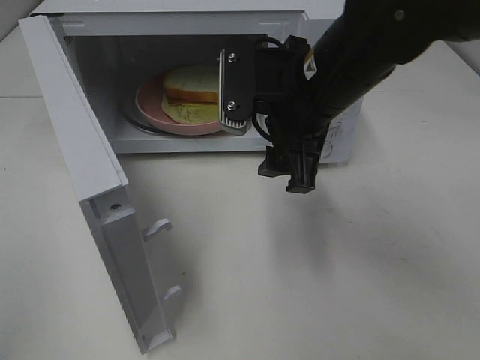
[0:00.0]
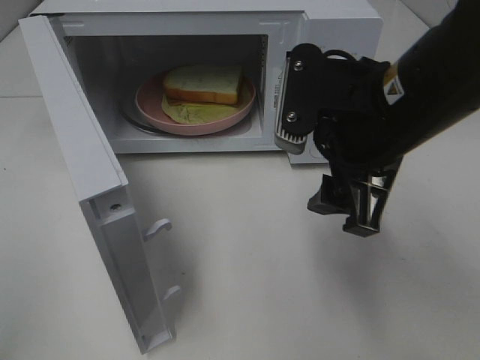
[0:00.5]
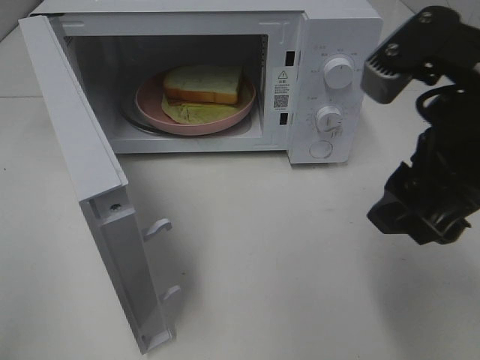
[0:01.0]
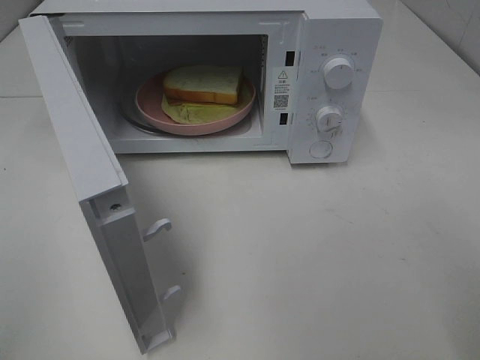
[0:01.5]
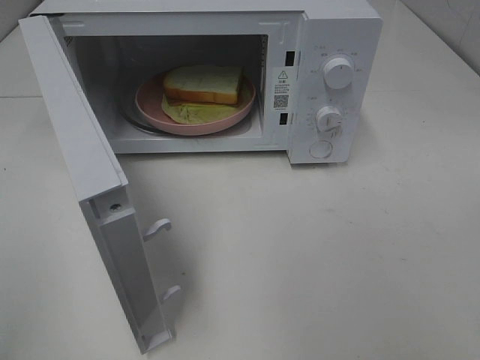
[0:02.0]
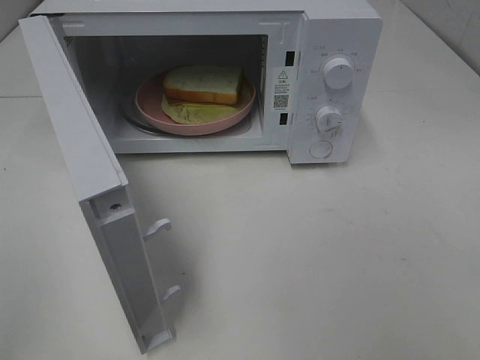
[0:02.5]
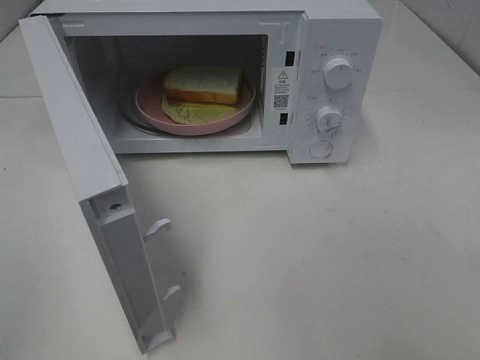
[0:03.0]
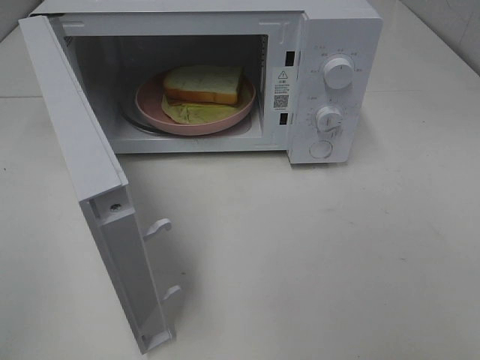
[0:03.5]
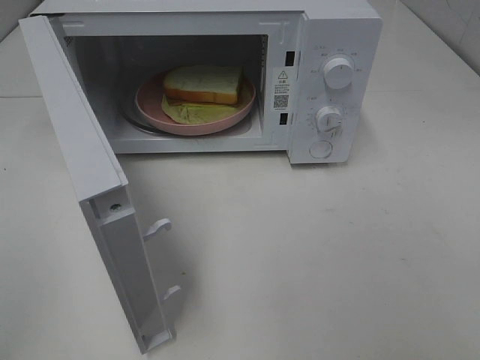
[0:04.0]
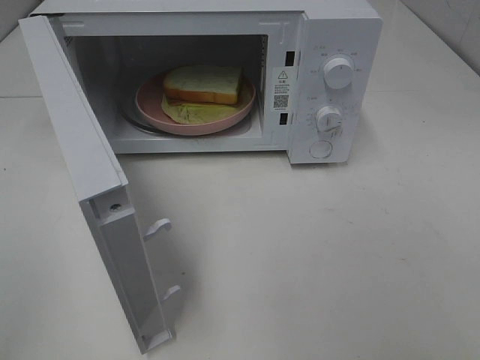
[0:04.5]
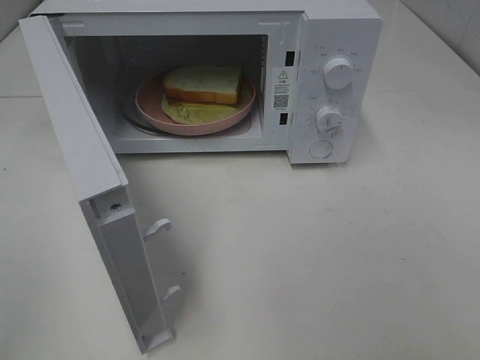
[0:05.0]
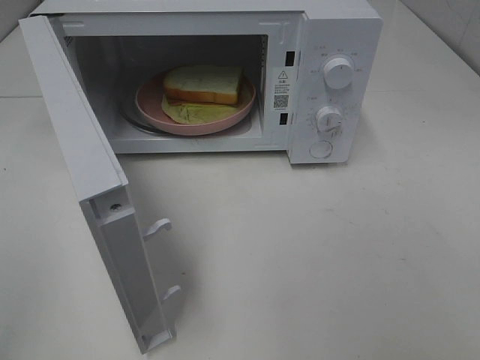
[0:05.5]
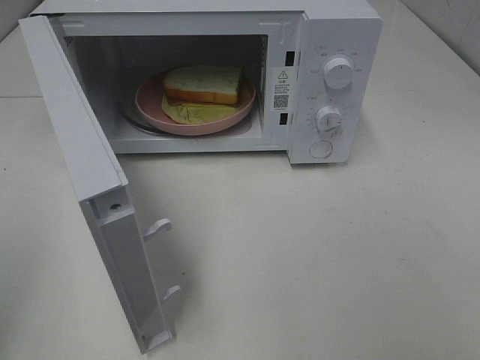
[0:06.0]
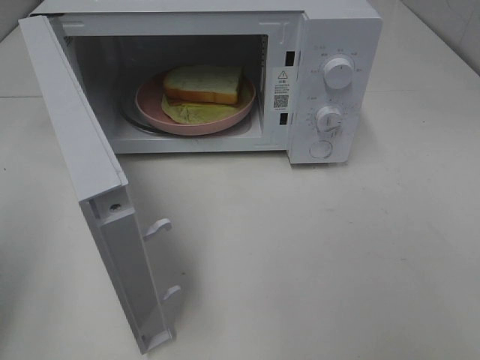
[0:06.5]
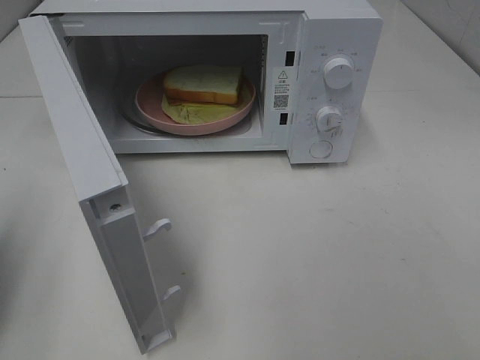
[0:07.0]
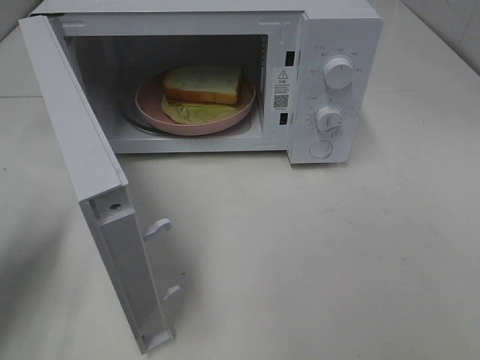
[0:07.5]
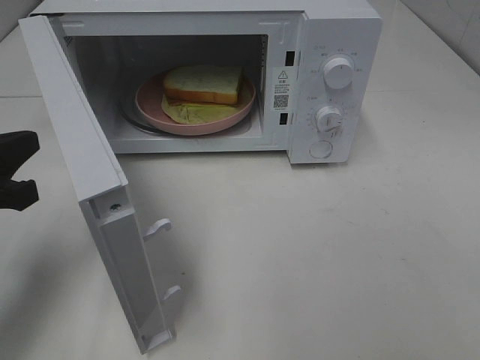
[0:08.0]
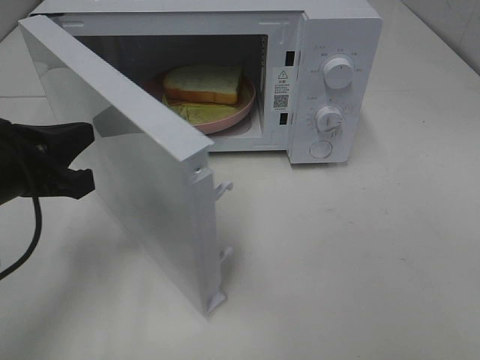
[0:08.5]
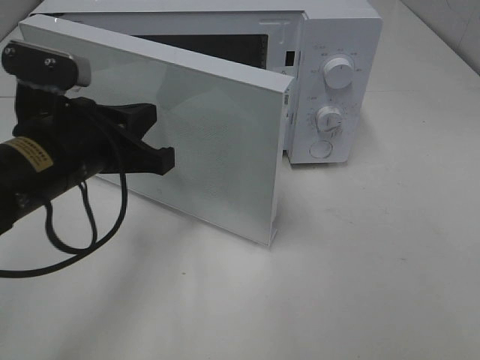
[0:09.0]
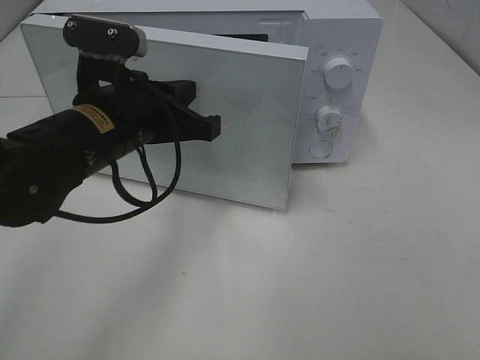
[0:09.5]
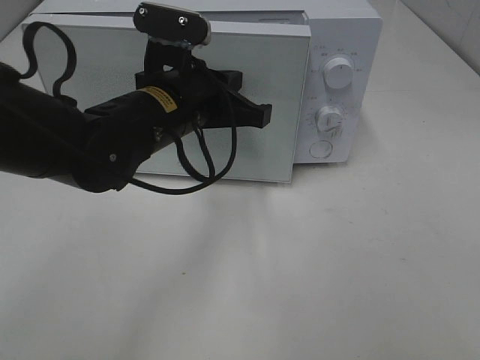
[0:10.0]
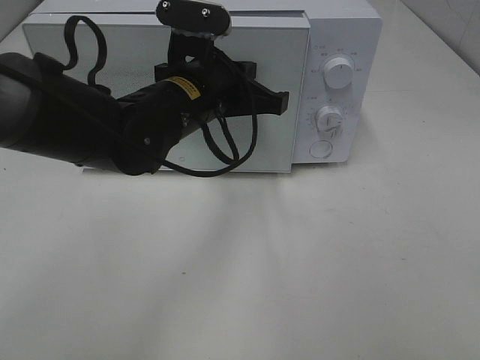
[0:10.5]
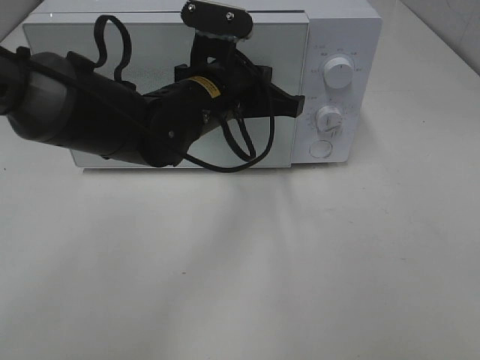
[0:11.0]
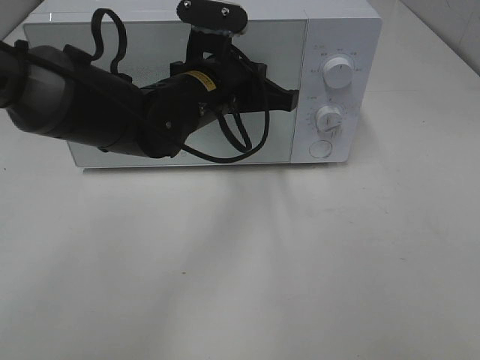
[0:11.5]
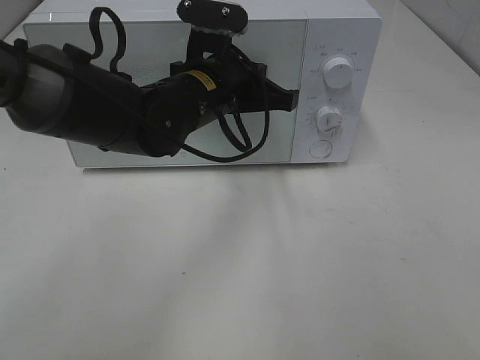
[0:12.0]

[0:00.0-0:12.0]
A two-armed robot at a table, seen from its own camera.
Task of the whole recording: Heat Sandwich.
0:00.0 to 0:02.0: The right gripper shifts about 30 cm backward, to the right and upward.
0:06.0 to 0:08.0: The left gripper shifts some 20 cm forward, downward and to the right.
0:08.0 to 0:10.0: The left gripper is displaced to the right and forward by approximately 25 cm.
0:10.0 to 0:12.0: The left gripper ends up roughly 5 cm from where it was.

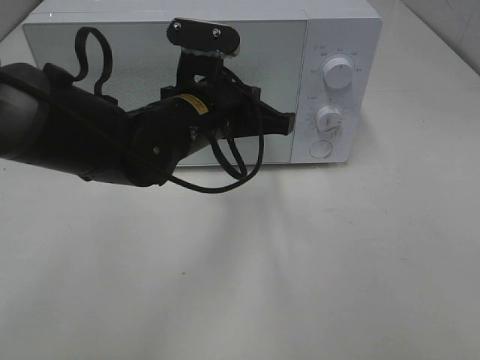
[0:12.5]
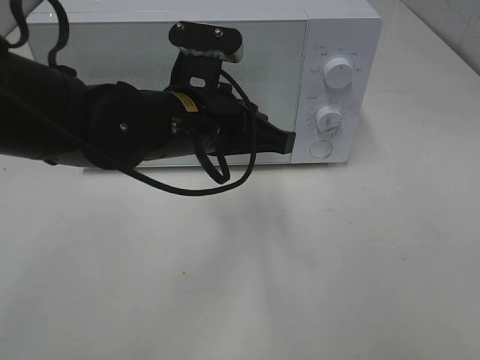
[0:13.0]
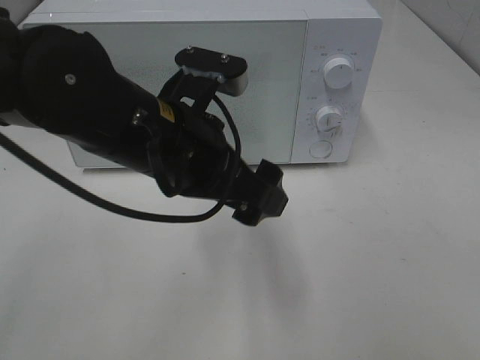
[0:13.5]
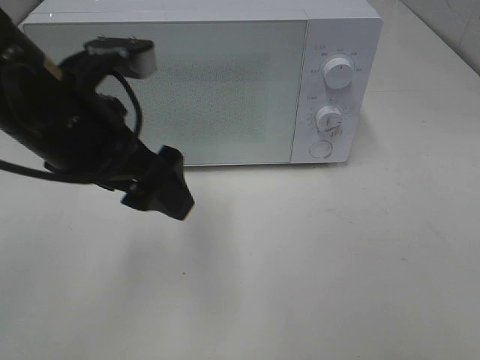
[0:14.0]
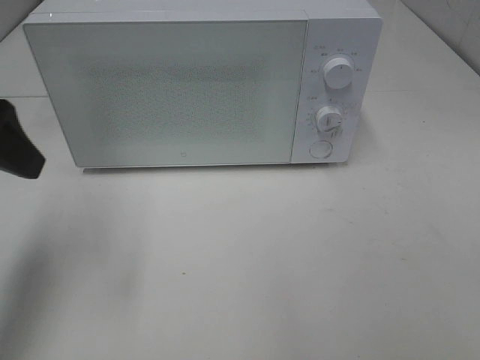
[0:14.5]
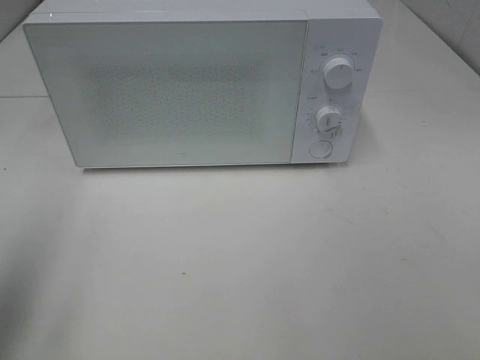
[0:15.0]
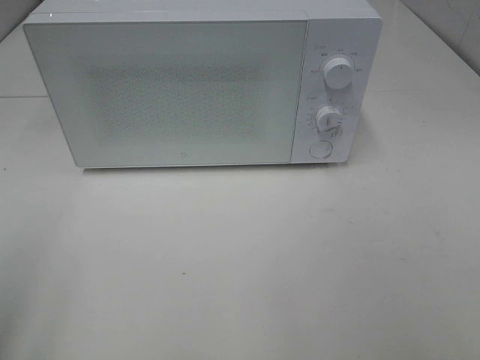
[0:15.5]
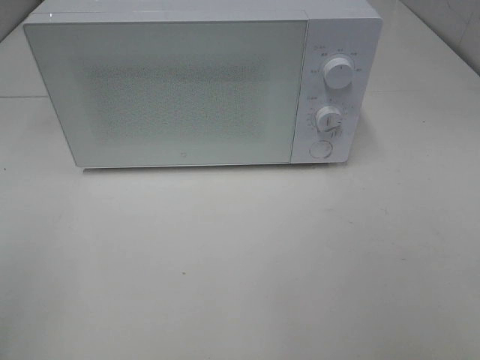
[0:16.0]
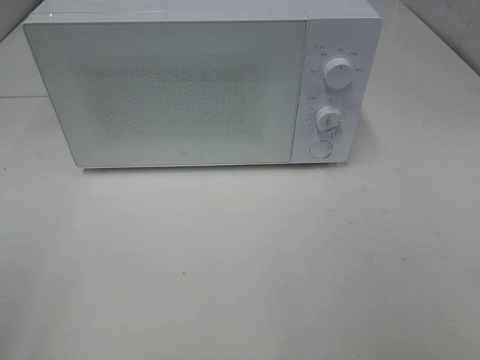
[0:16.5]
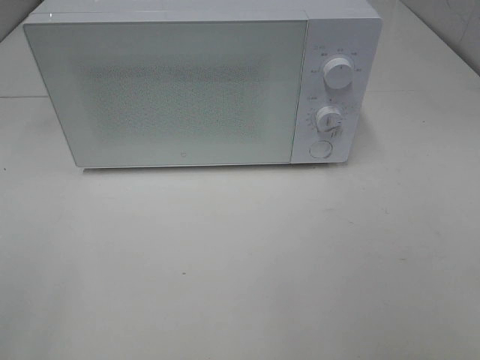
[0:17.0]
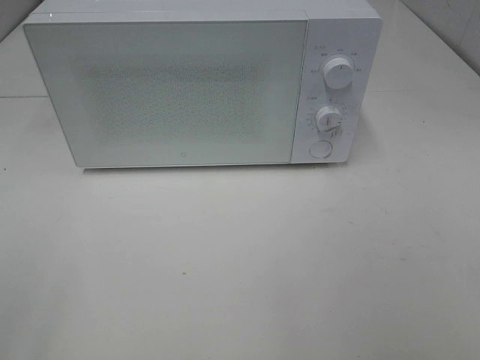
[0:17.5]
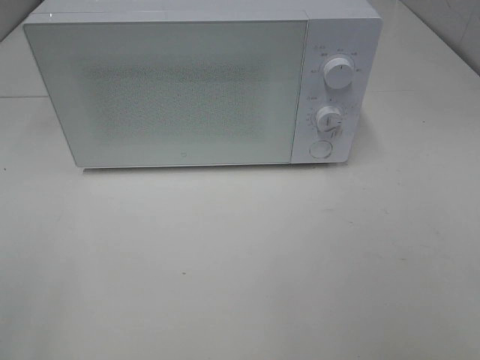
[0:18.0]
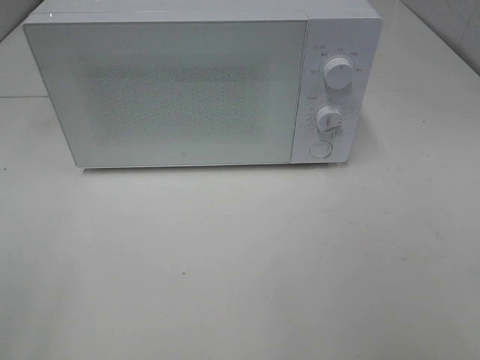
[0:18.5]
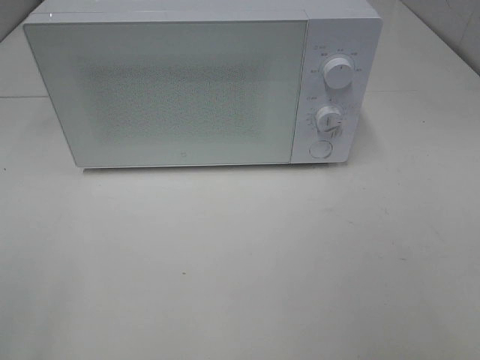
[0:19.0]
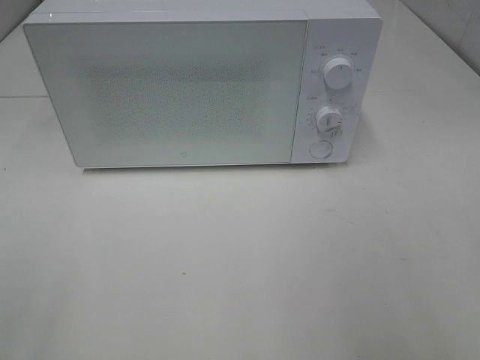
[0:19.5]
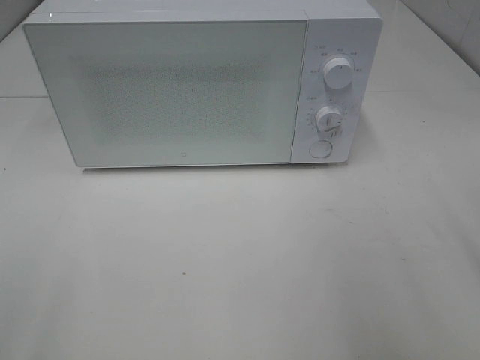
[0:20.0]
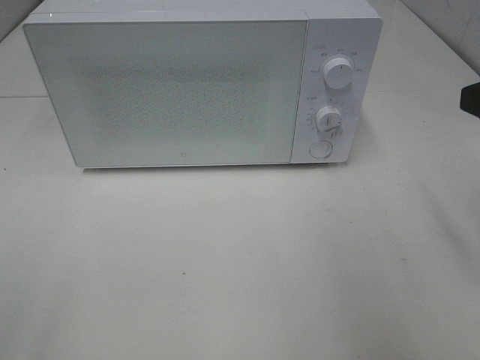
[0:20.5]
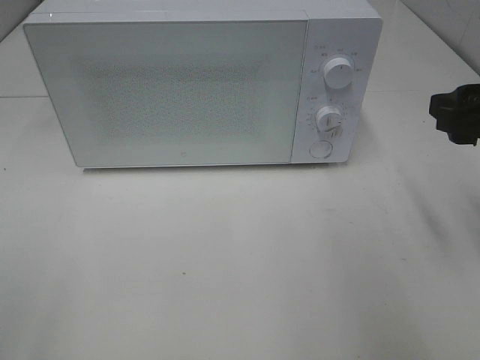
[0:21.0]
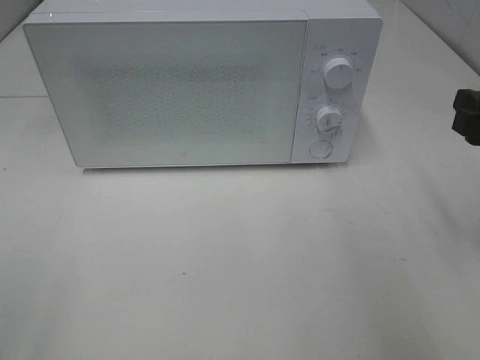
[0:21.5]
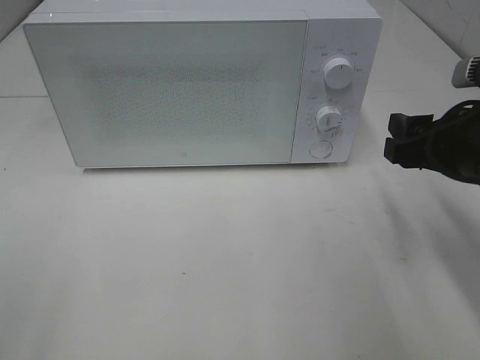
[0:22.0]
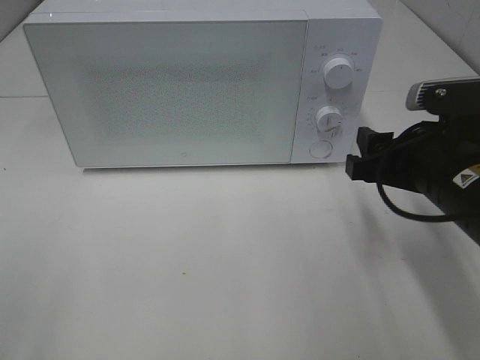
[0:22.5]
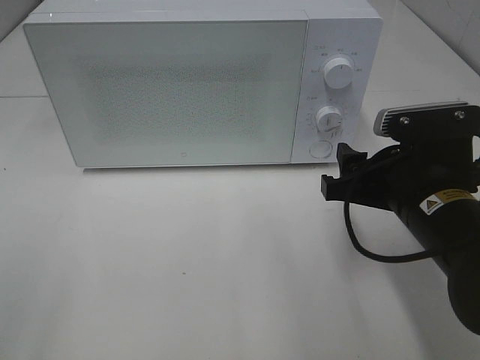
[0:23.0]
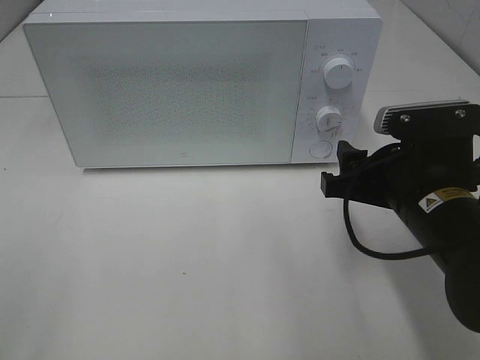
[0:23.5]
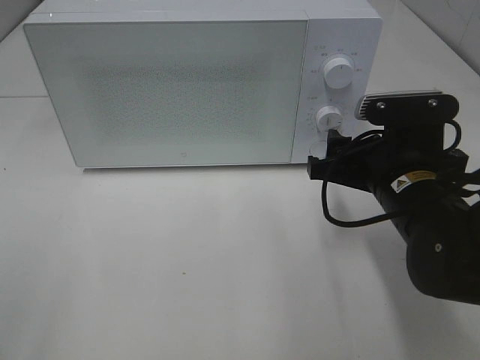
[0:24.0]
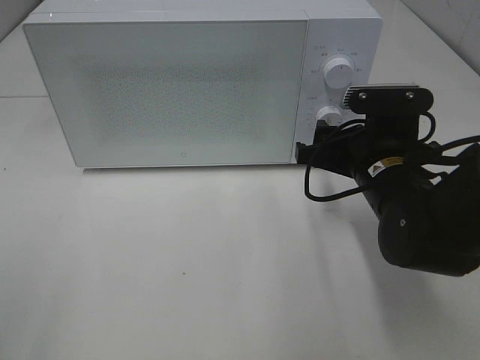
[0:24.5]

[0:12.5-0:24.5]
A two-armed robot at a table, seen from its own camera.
Task of the whole recording: Heat Sandwich.
0:12.5 to 0:14.5: The left gripper goes approximately 25 cm to the left and upward, and opens.
0:14.5 to 0:16.5: The left gripper travels backward by approximately 20 cm.
0:20.5 to 0:22.5: The right gripper shifts some 15 cm downward and to the left.
0:22.5 to 0:24.5: The right gripper shifts some 5 cm forward.

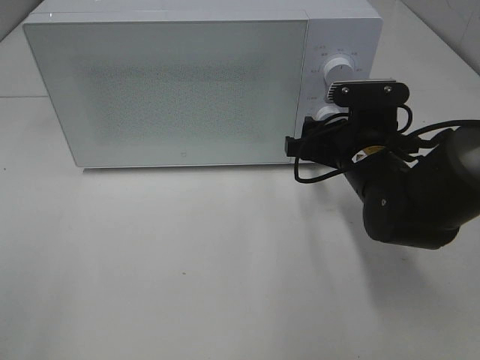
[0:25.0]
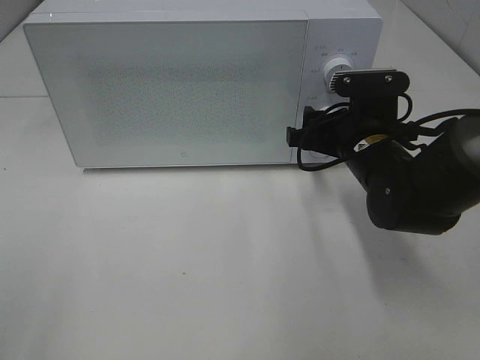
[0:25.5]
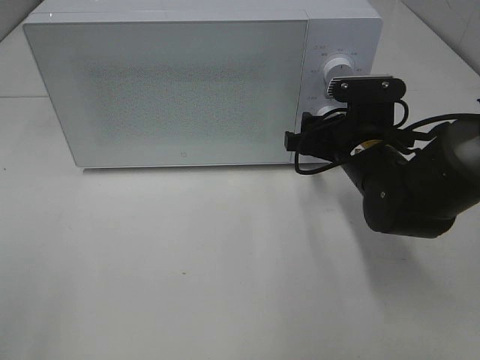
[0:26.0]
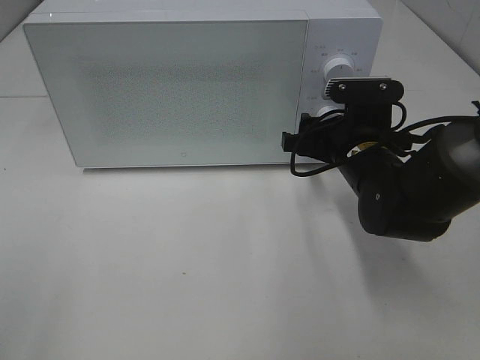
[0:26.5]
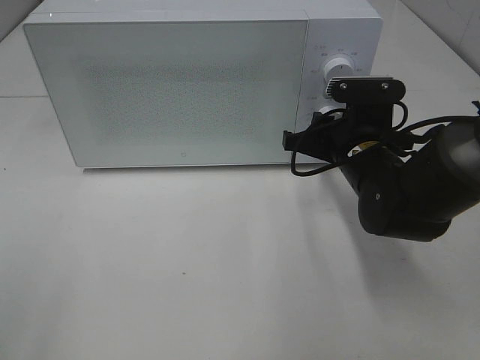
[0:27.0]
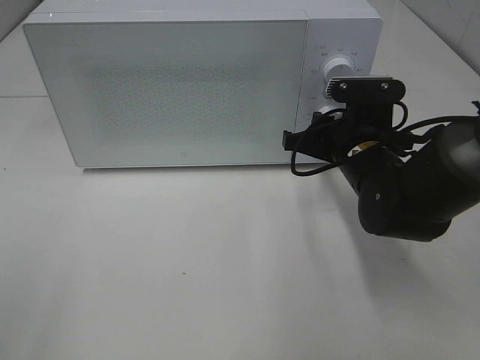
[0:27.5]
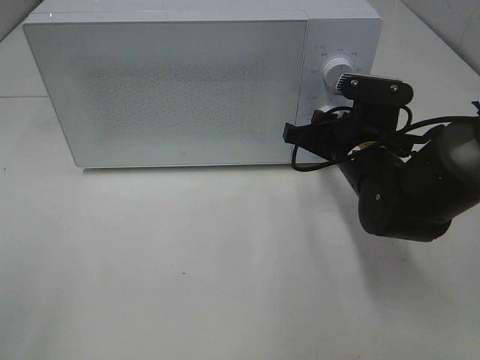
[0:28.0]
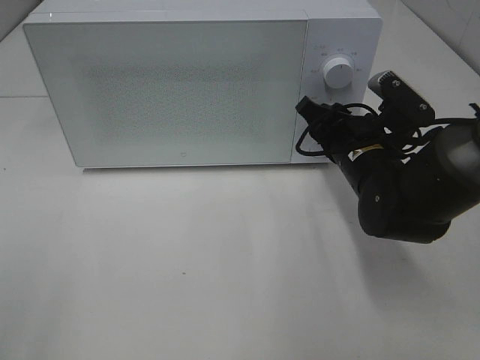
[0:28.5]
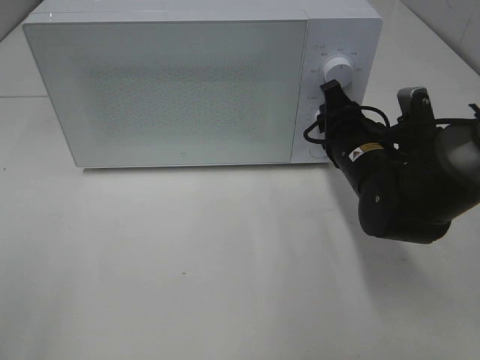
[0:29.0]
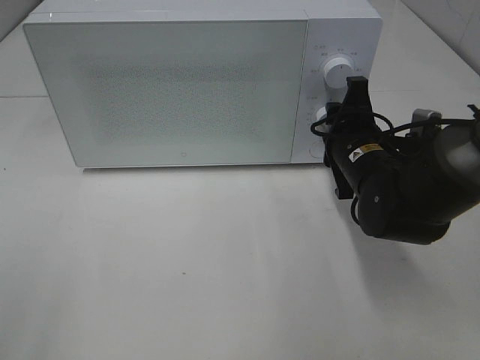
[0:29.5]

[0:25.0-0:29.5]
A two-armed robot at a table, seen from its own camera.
Task of the whole recording: Heat Sandwich.
0:25.0 to 0:27.0: The right gripper closes up.
